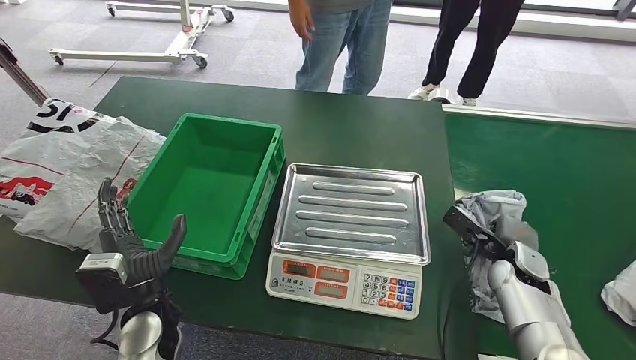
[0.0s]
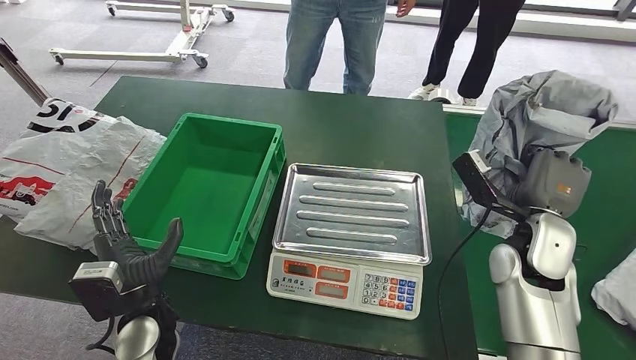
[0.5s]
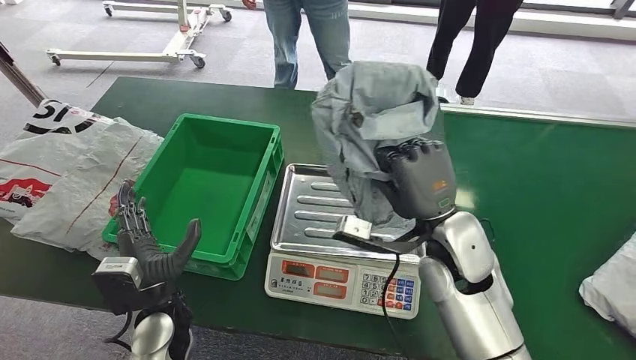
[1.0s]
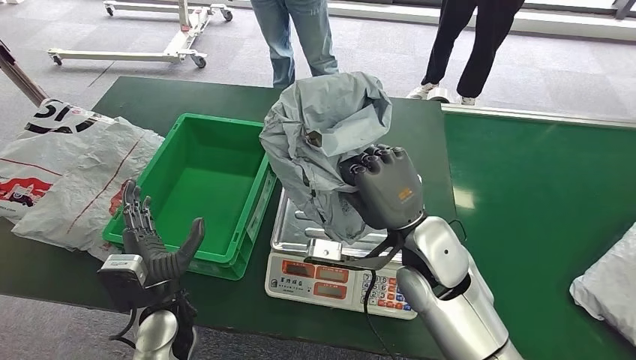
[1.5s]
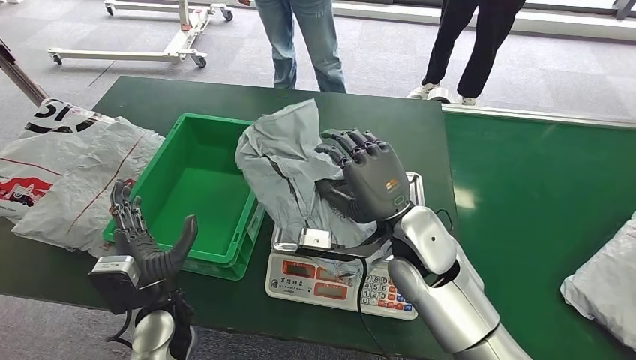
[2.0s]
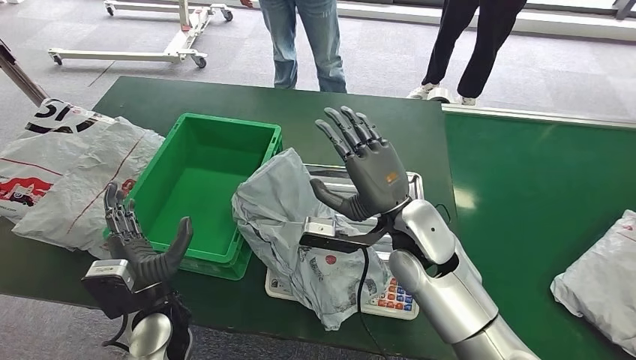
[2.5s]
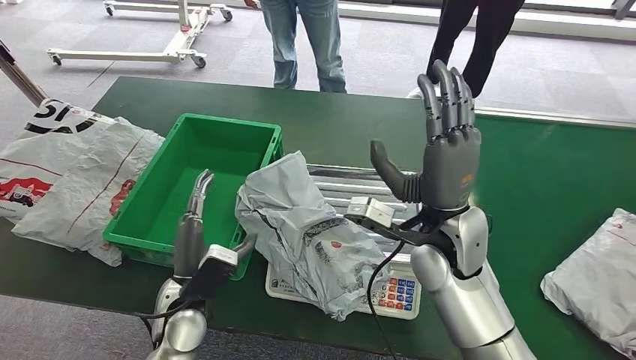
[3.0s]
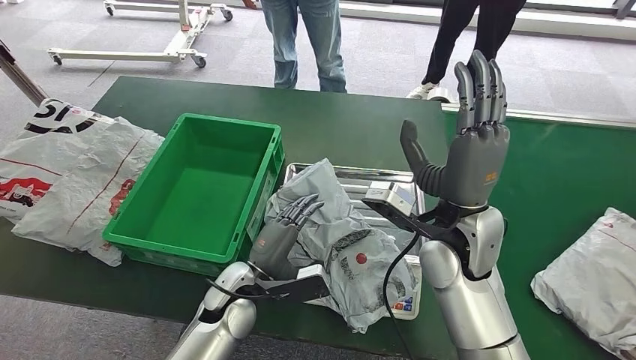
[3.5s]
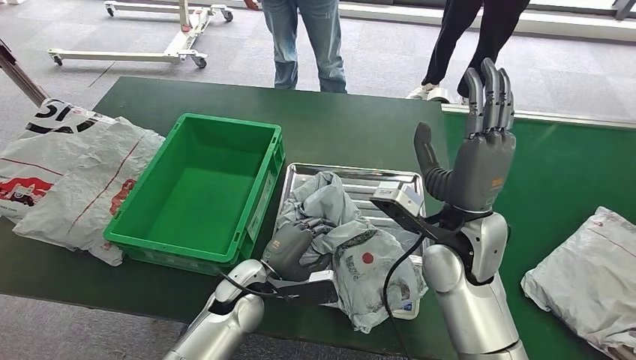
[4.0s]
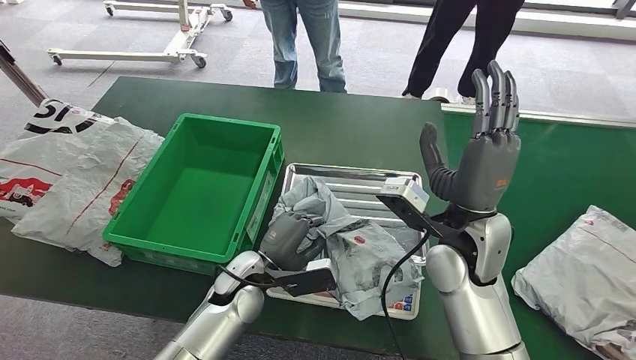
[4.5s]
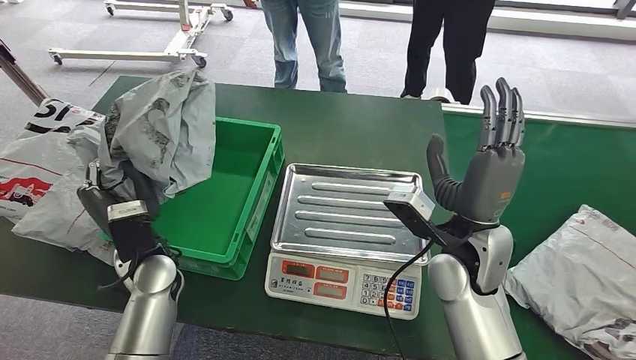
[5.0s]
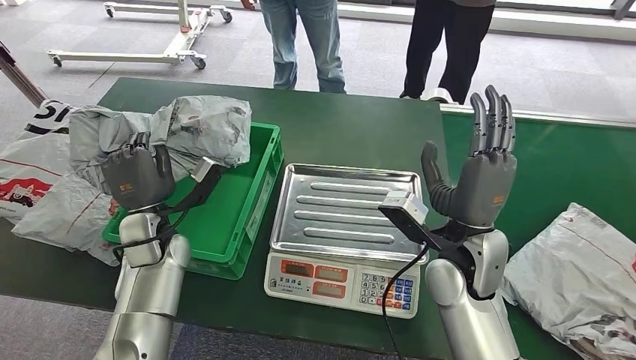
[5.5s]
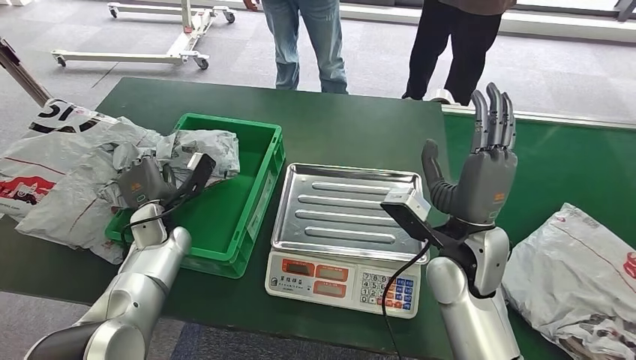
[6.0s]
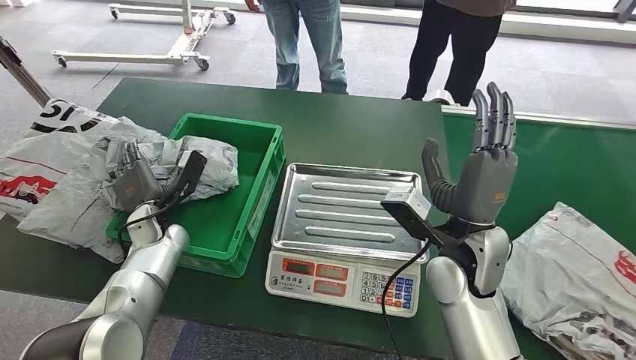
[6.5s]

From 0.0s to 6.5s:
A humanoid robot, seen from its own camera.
Task of the whole recording: Weigh the package on the weighing device and place it in the left basket.
Step, from 1.0s to 3.0s: Place the package onto the inbound machine.
Step, from 3.5s to 4.5s: Pick up the package from the inbound machine.
Step, from 5.0s to 6.0s: Place the package into the parcel locker.
